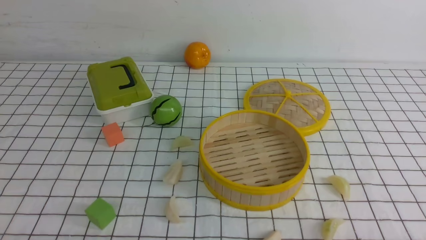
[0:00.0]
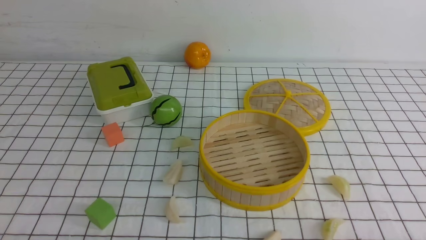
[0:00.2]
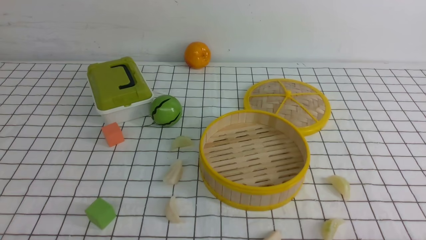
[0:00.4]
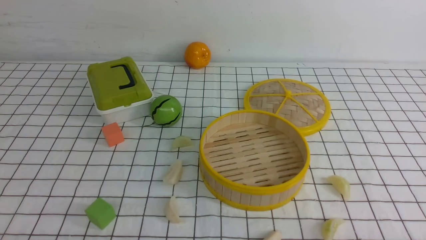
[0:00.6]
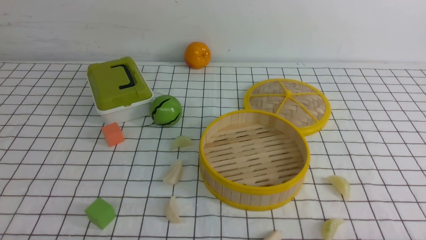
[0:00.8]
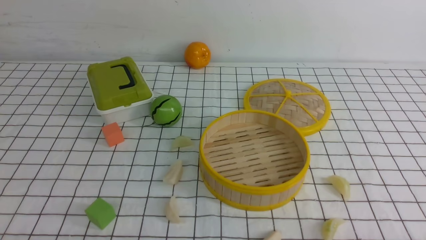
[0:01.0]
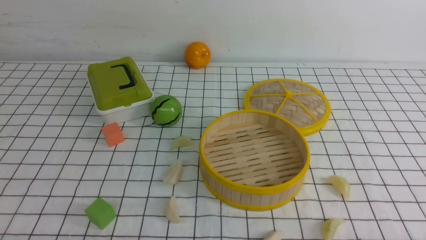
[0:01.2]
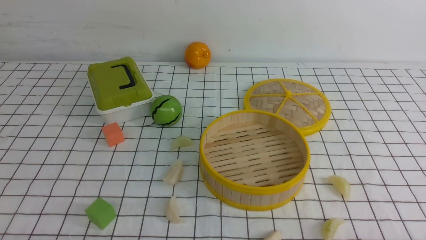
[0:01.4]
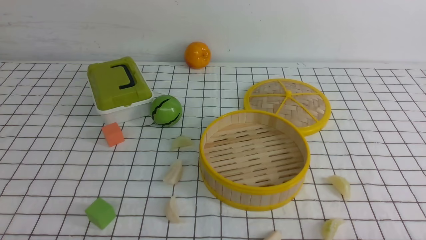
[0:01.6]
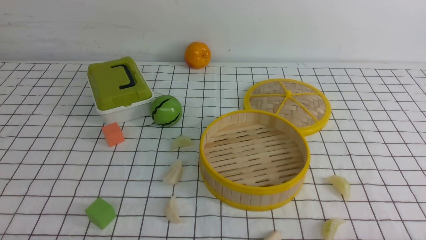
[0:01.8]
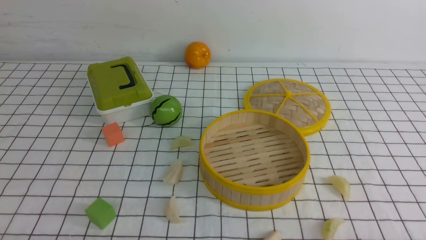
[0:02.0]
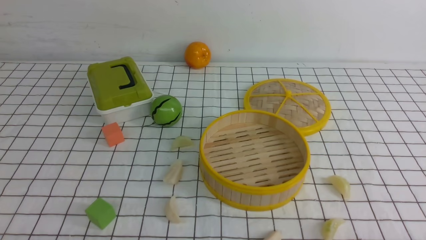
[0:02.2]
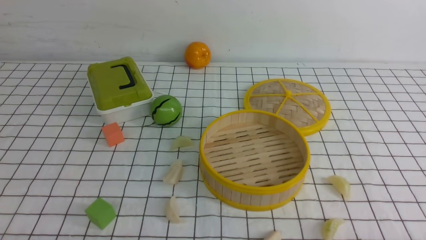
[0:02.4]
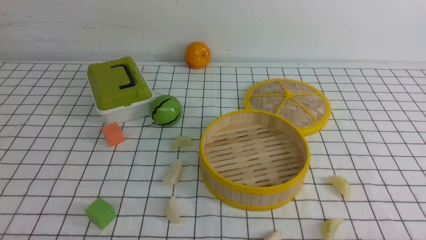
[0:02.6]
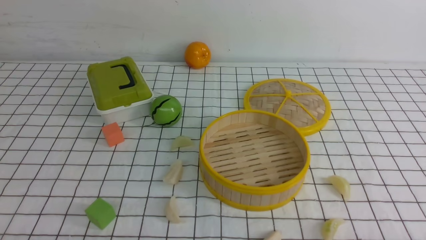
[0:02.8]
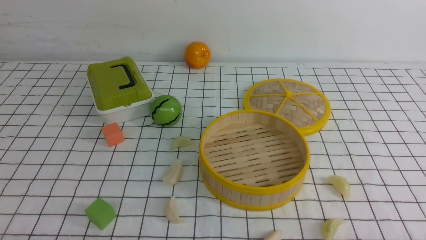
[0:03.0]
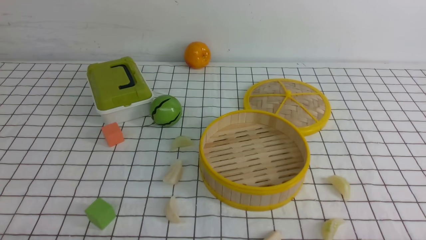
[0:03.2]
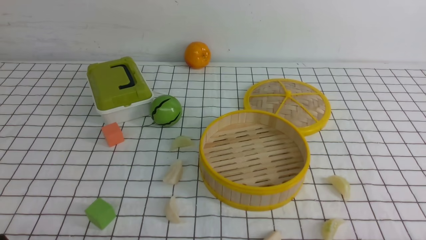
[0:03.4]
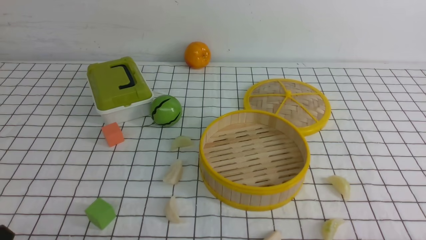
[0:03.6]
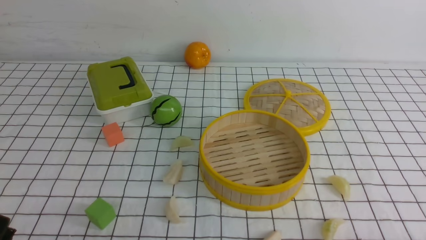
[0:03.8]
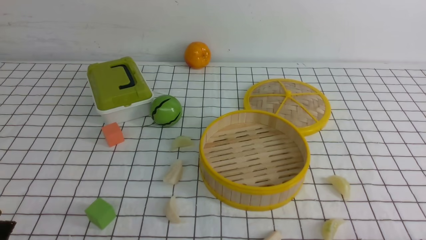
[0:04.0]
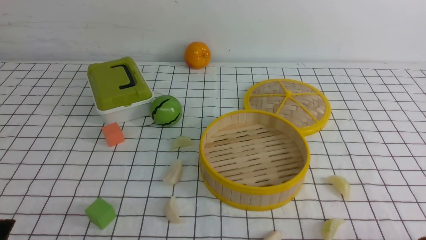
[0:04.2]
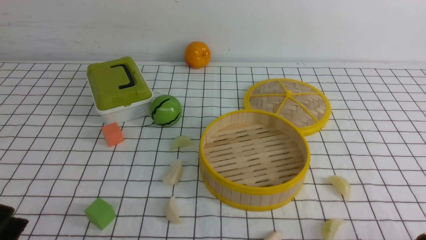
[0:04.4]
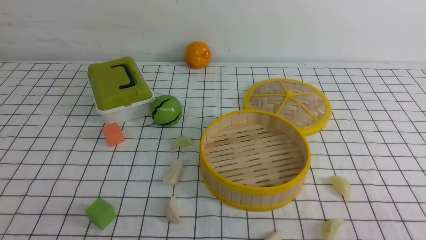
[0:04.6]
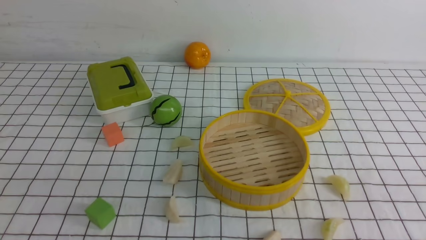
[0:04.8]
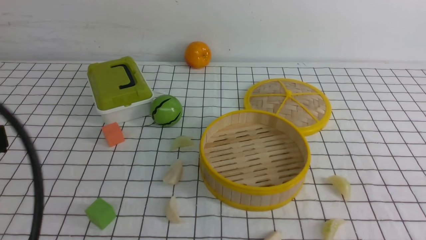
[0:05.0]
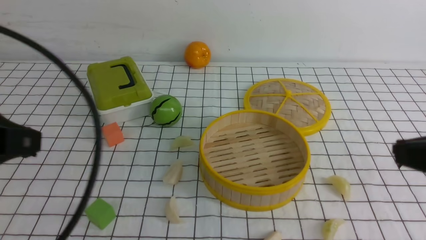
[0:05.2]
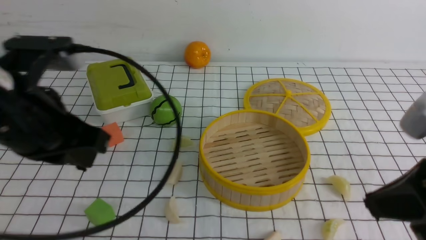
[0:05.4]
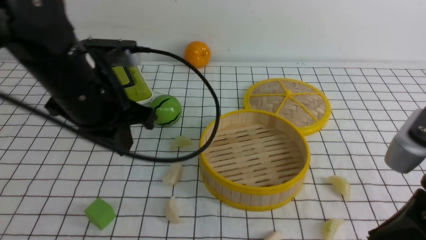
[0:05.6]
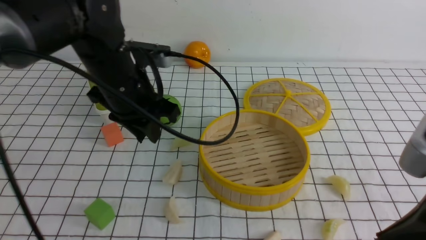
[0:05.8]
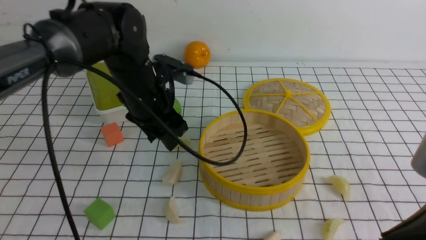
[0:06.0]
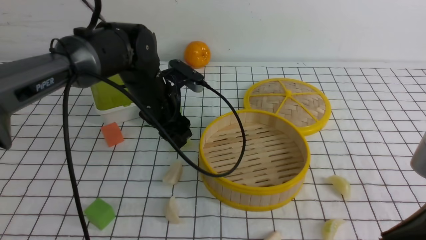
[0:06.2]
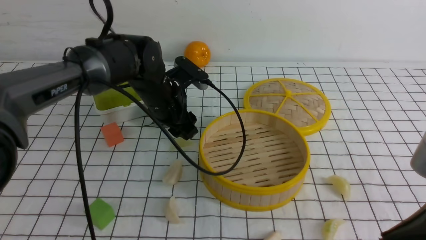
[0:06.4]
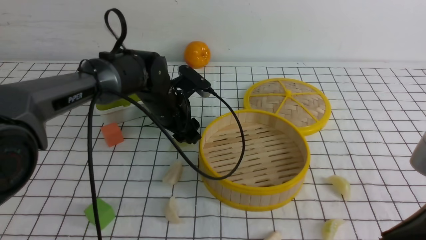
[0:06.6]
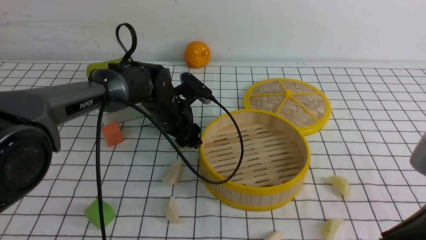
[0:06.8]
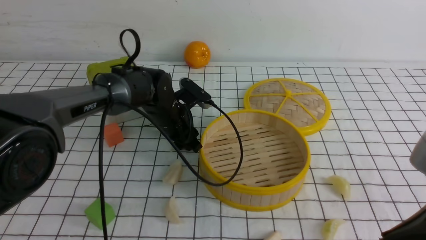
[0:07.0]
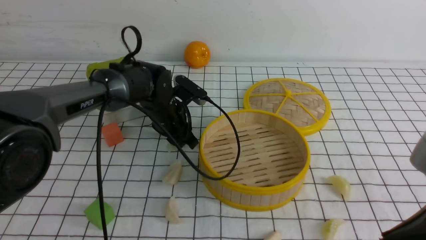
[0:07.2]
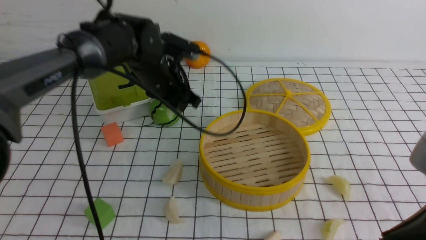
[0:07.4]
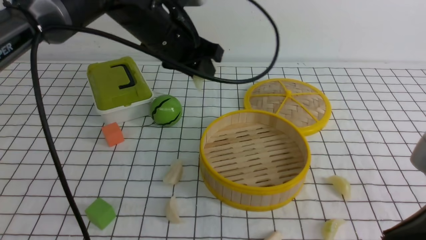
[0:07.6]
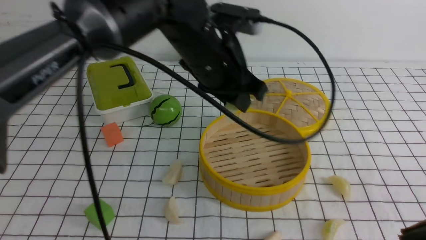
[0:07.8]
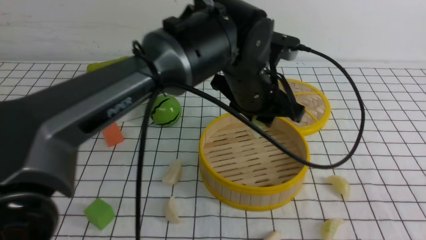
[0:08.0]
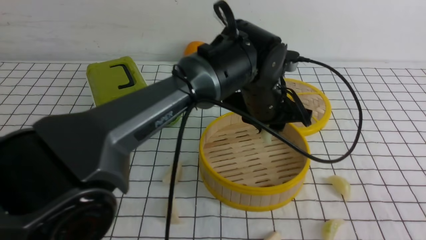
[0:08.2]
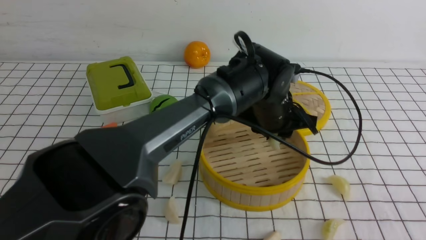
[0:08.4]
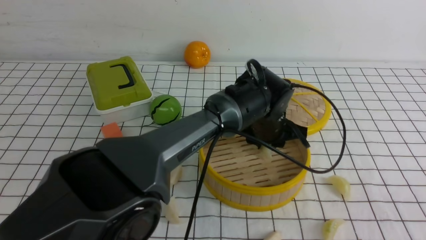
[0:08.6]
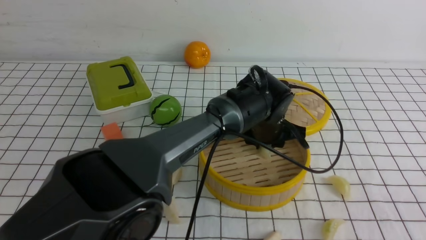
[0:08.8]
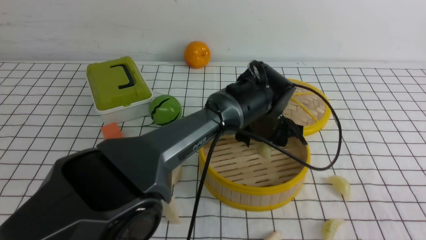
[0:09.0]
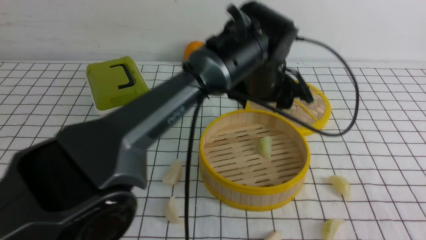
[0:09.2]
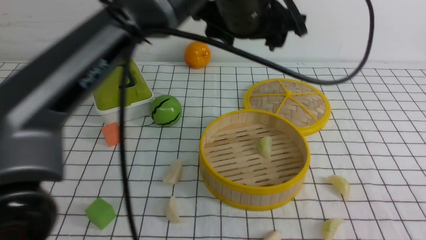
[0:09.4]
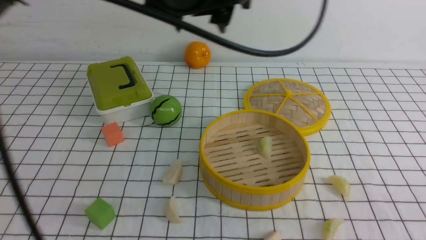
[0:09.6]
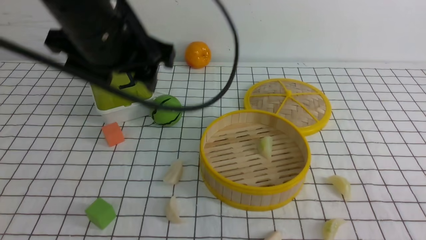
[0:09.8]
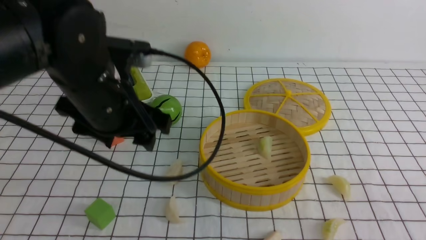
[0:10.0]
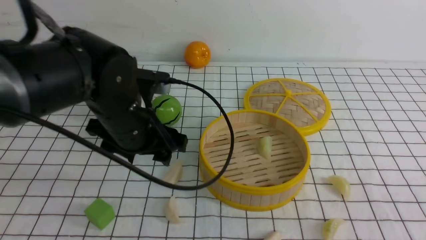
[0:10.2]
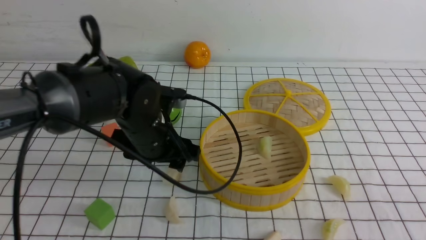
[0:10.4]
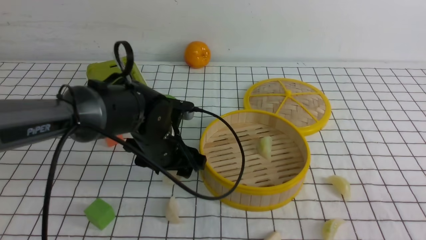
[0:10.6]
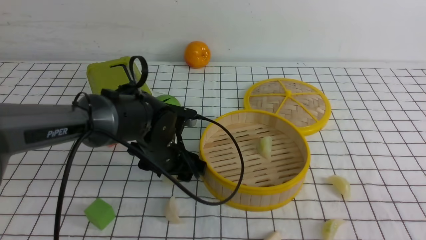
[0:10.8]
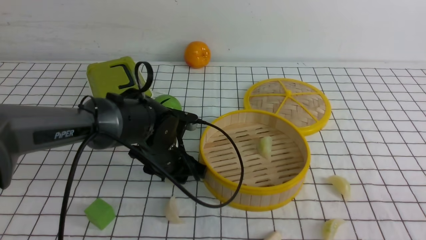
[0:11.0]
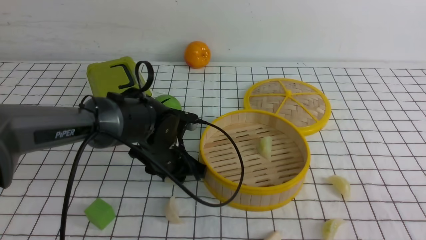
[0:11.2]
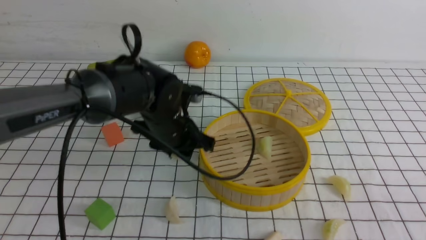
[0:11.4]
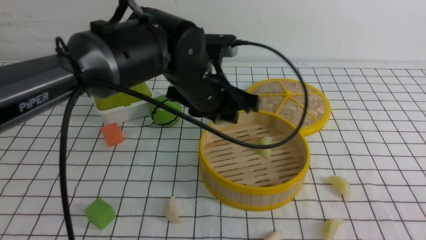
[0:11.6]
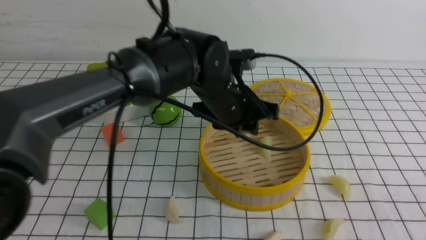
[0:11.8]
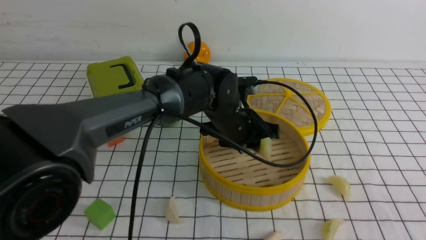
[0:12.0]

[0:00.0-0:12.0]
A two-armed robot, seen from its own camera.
Task of the whole recording: put the dumplings into the steamer on the table with the white tablecloth.
Step, 0:00.0 to 0:07.6: use the left arm to grab a dumpling.
Step, 0:08.0 to 0:09.2: use the left arm to put the dumpling into the steamer.
Step, 0:09.4 to 0:11.6: use the left arm to grab a dumpling.
0:00.0 to 0:03.0: Both grippers stay about where they are.
0:03.0 to 0:04.4: The left gripper heads upward, covering approximately 5 cm.
0:04.4 to 0:06.0: The right gripper travels upward, forward and to the left by about 15 cm, and closes. Meanwhile the left gripper is displaced forward and to the right by some 35 cm, and closes, then opens again.
0:06.0 to 0:07.6: The left gripper is displaced upward and to the right by approximately 10 cm.
0:07.6 to 0:09.0: The left gripper is displaced to the right and downward by some 15 cm, and opens up, while the right gripper heads backward, covering about 5 cm.
0:09.0 to 0:10.4: The left gripper moves to the left, about 20 cm, and reaches about 20 cm upward, then returns.
0:10.4 to 0:12.0: The left gripper is displaced to the right and forward by roughly 15 cm, and closes its fingers.

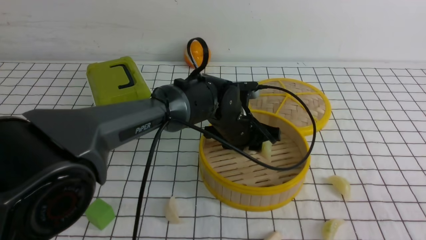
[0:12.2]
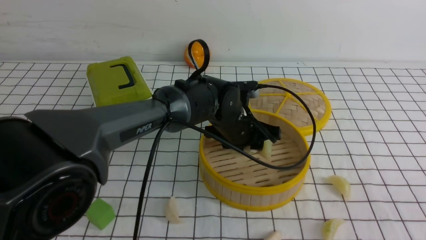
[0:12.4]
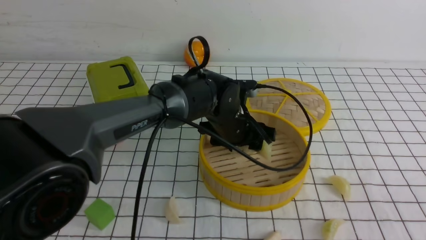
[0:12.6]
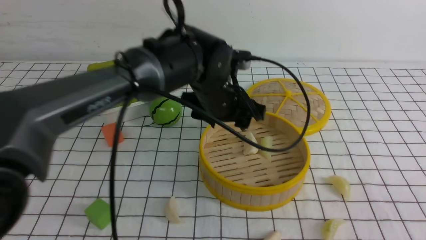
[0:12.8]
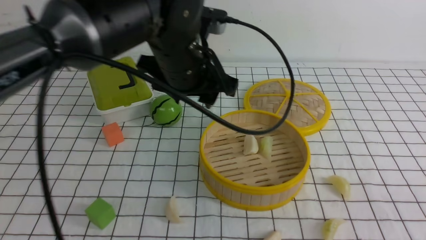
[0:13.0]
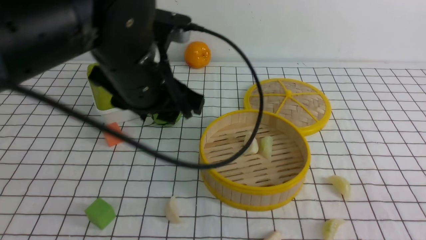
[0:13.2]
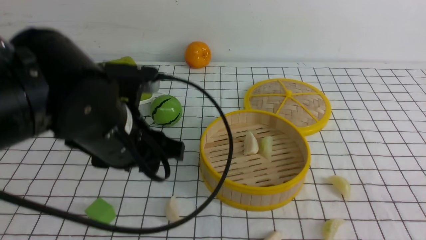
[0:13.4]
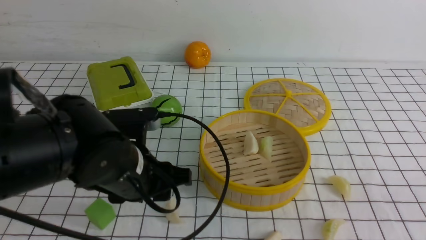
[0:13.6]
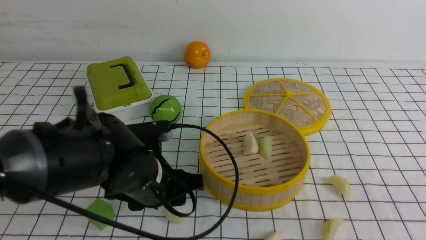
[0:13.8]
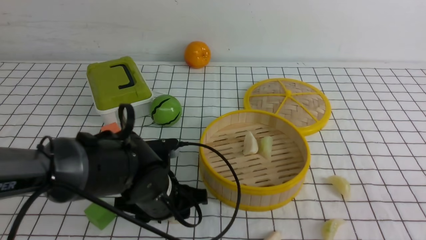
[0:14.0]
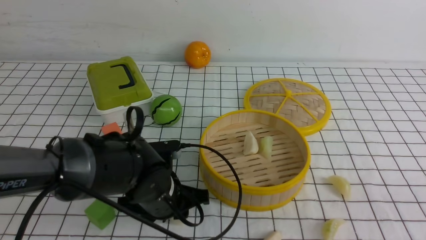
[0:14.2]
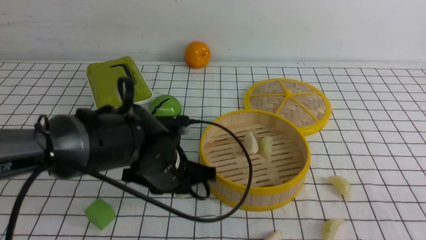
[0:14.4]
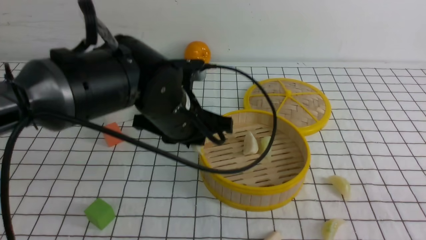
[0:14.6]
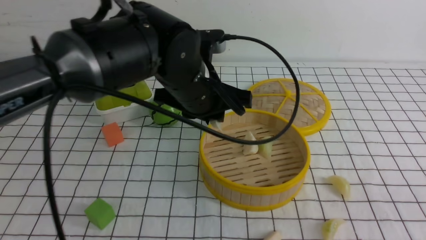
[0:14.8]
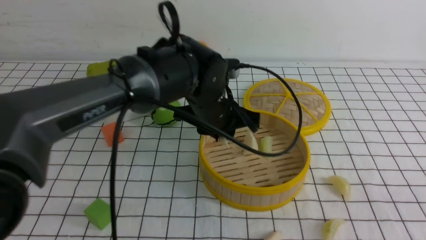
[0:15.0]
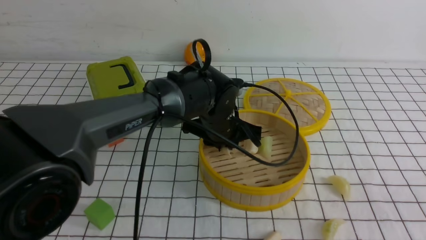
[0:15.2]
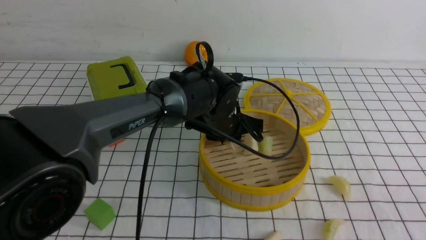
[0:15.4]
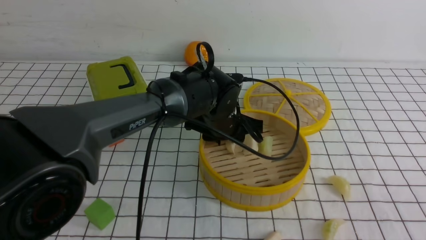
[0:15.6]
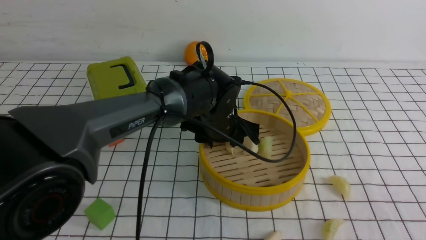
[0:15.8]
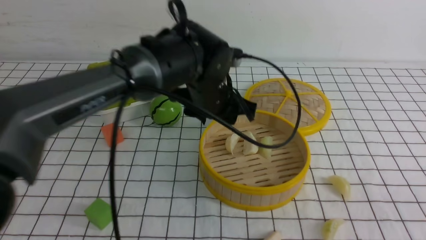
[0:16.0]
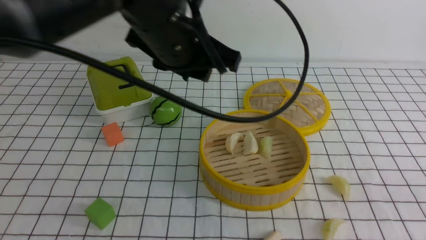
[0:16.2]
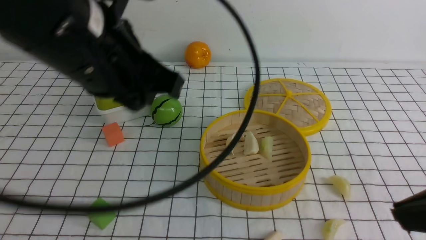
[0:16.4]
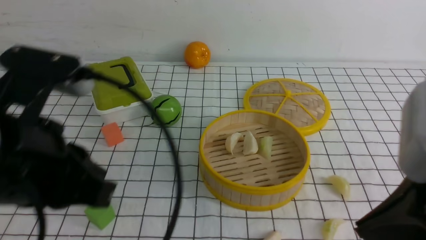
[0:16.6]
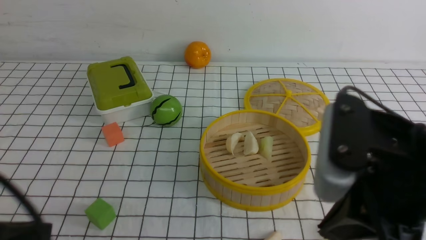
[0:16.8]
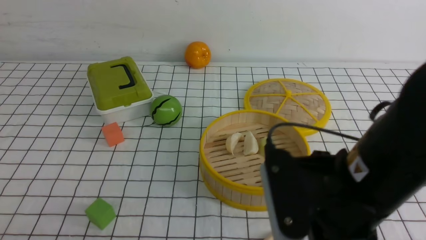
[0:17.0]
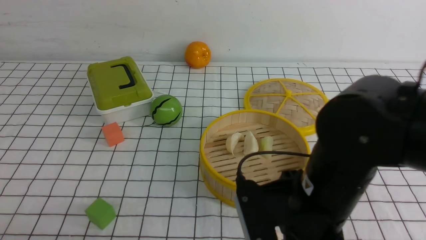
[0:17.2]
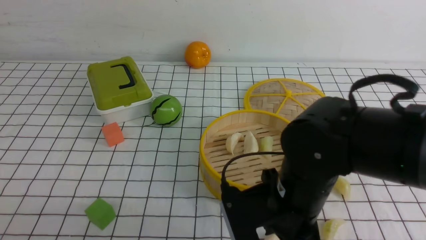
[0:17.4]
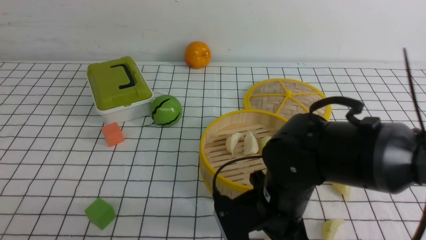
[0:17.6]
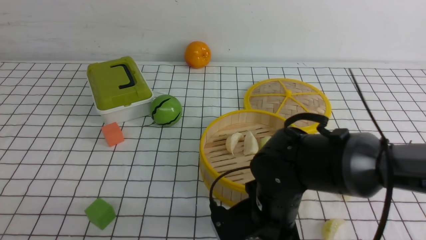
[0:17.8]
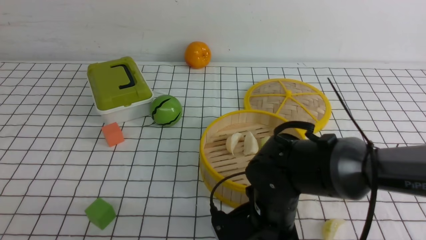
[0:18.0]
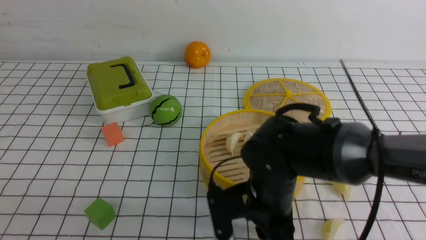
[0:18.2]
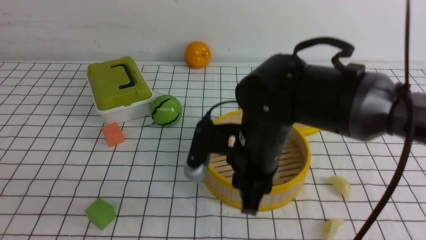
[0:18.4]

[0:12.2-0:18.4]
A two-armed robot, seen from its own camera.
Task of the whole recording: put the dumplings into the steamer on the table with the white tablecloth.
Step, 0:12.2 to 0:12.8: use the left arm to put the dumpling into the steamer.
Step, 0:13.0 to 0:14.6: use the left arm to grab a dumpling.
Step, 0:14.8 to 0:15.8: use the left arm to put the dumpling into the steamer.
0:12.2 to 0:13.8: The left gripper moves backward and to the left, about 20 cm.
0:13.8 to 0:15.4: The left gripper shifts about 15 cm forward and to the right.
0:15.4 to 0:16.8: The right gripper travels to the left and forward by some 15 cm, while the left gripper shifts about 40 cm backward and to the left, and closes its fingers.
0:16.8 to 0:18.4: The right gripper moves forward, to the left and downward, some 20 cm, and opens up, while the left gripper moves backward, about 5 cm.
